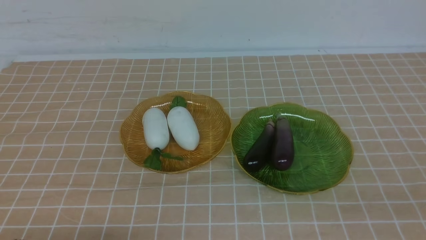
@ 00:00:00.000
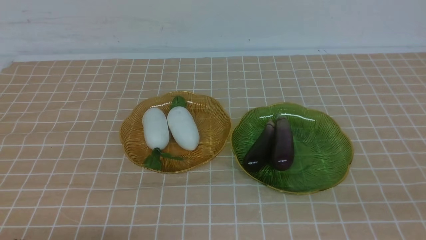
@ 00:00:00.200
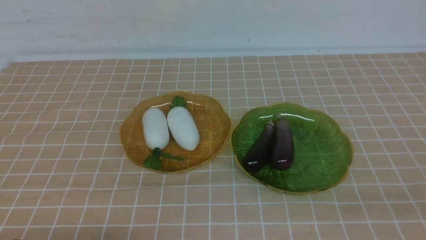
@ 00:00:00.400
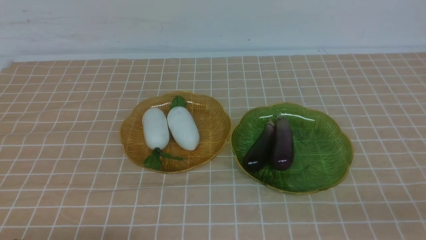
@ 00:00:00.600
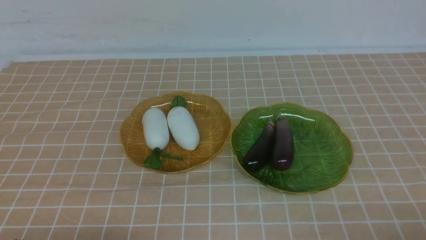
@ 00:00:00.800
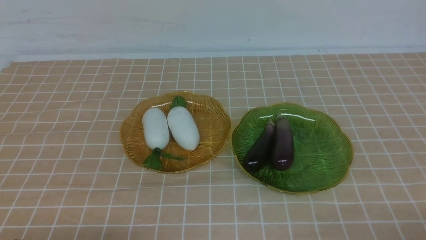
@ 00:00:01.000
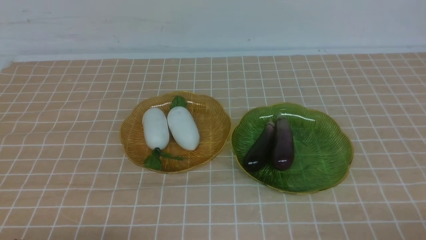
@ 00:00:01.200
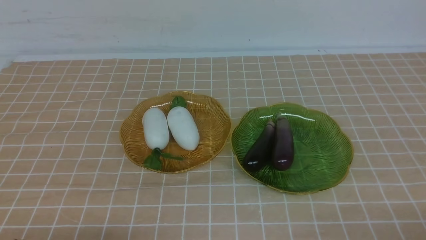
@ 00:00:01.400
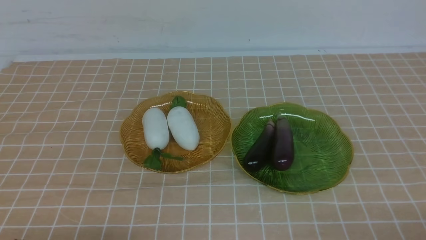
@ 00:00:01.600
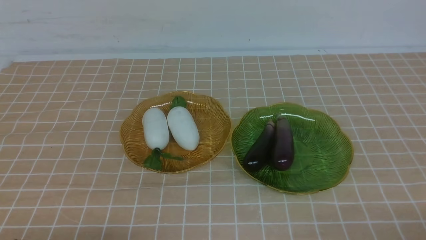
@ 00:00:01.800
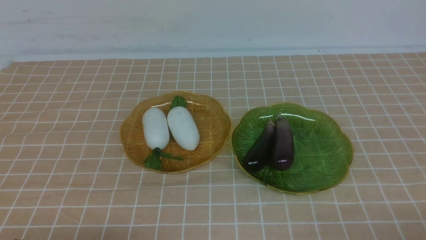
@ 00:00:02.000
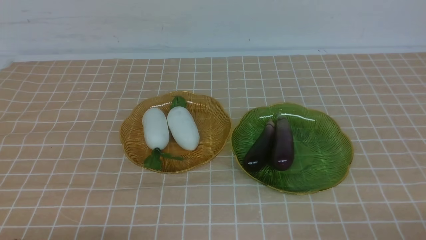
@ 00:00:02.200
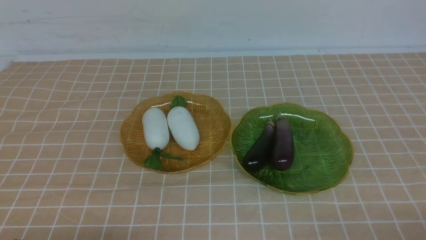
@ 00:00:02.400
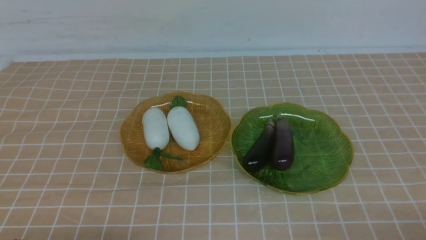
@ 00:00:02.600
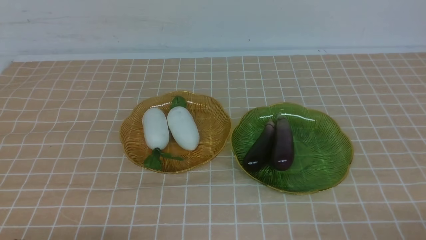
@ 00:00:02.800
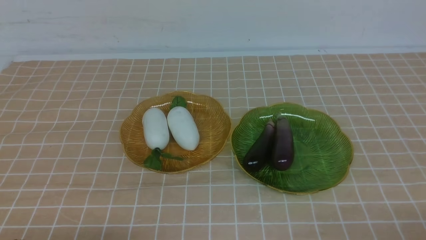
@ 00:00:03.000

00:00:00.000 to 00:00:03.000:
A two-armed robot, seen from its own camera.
00:00:01.600 to 00:00:03.000: Both grippers stay put.
